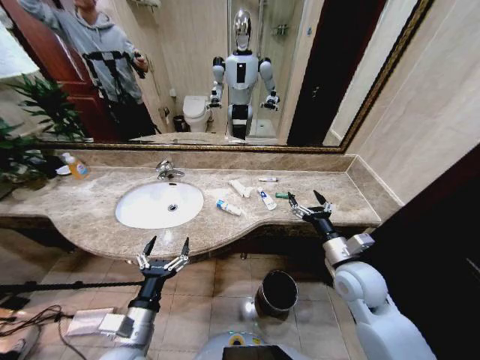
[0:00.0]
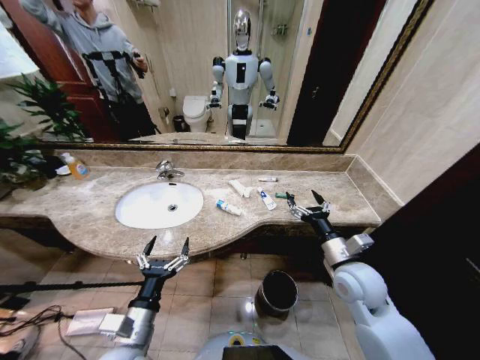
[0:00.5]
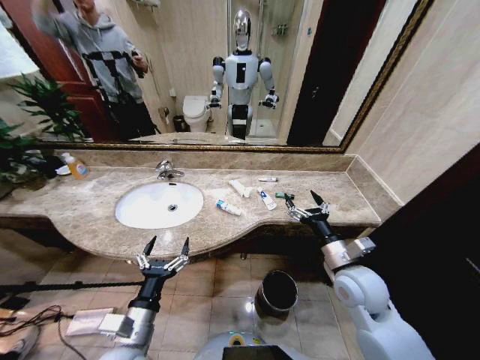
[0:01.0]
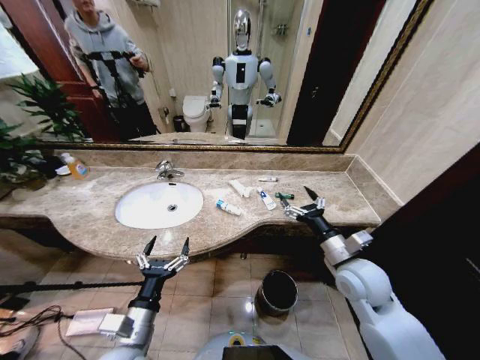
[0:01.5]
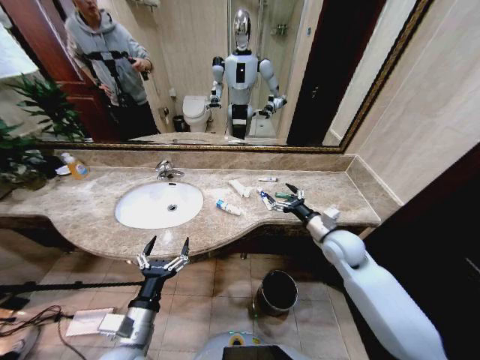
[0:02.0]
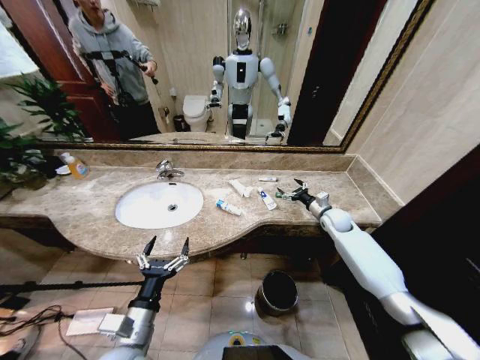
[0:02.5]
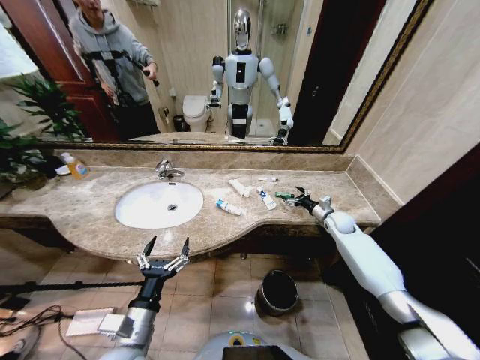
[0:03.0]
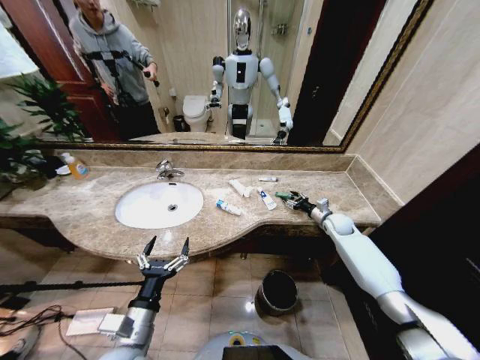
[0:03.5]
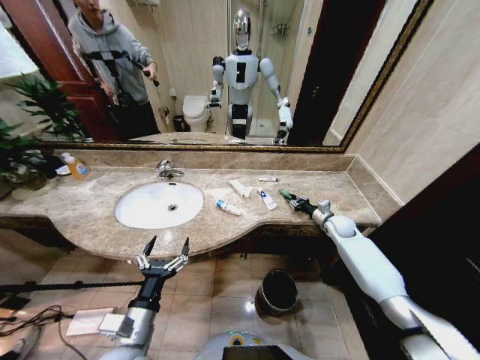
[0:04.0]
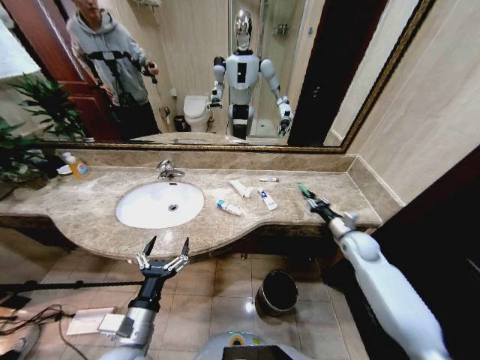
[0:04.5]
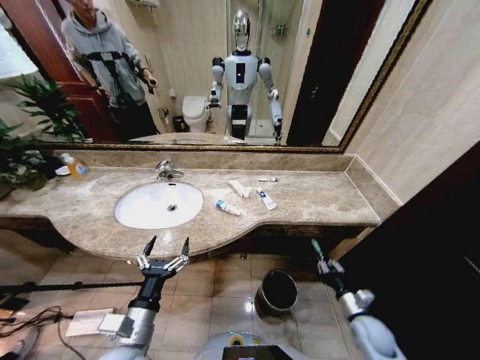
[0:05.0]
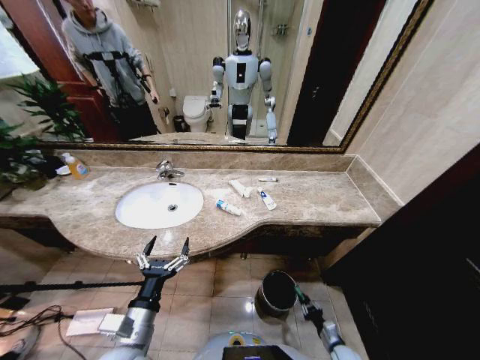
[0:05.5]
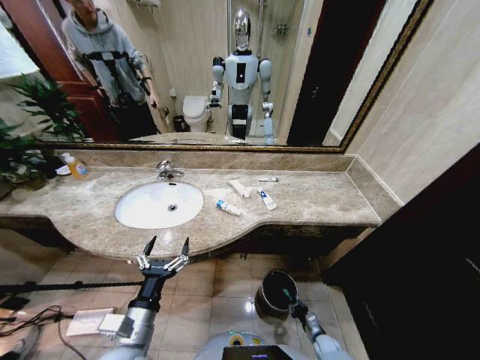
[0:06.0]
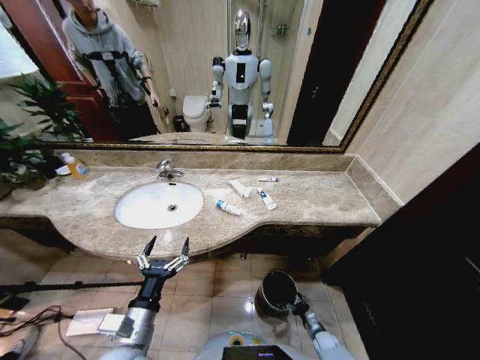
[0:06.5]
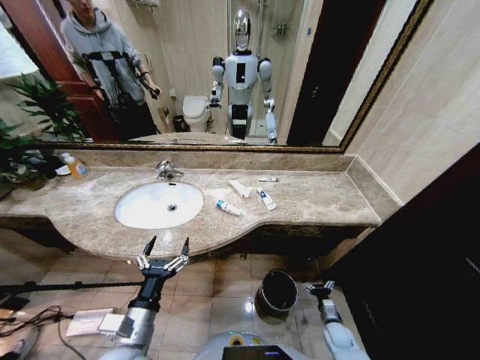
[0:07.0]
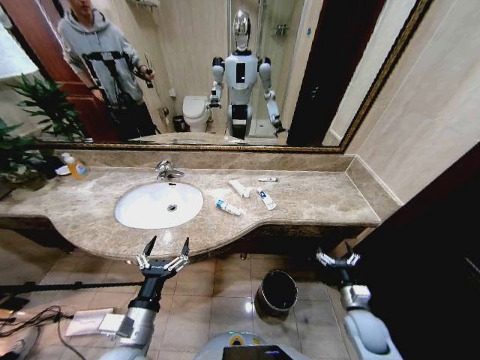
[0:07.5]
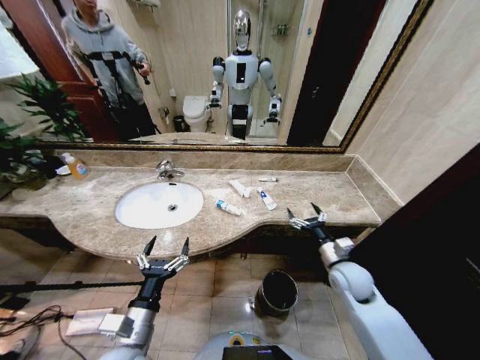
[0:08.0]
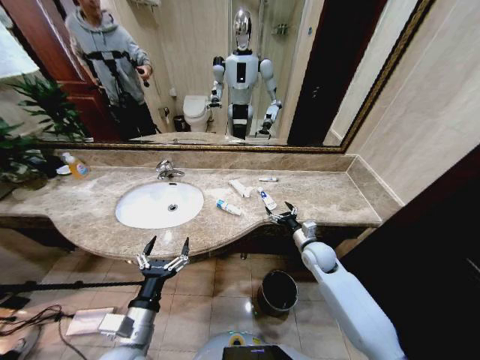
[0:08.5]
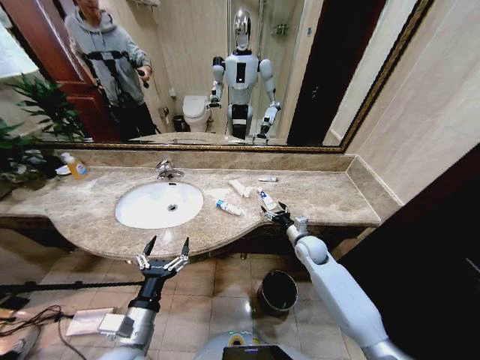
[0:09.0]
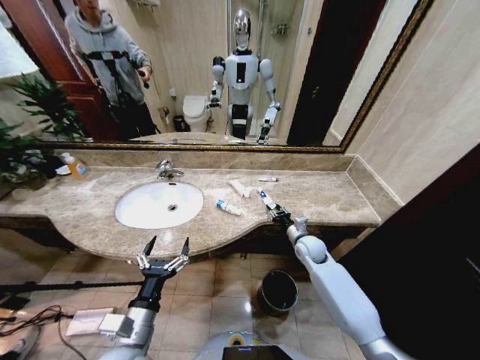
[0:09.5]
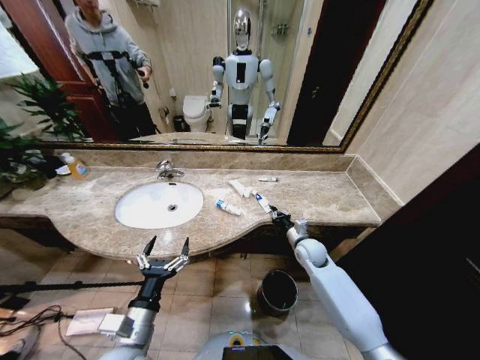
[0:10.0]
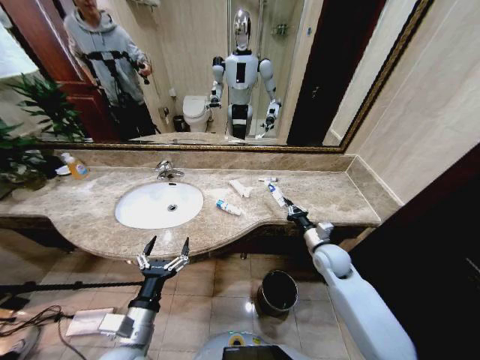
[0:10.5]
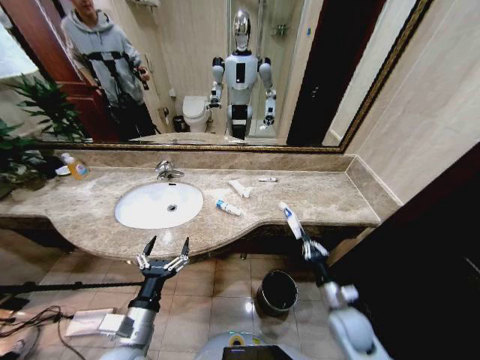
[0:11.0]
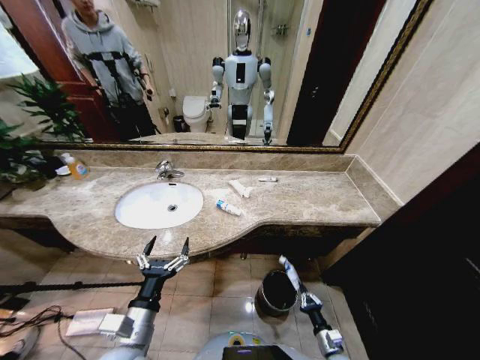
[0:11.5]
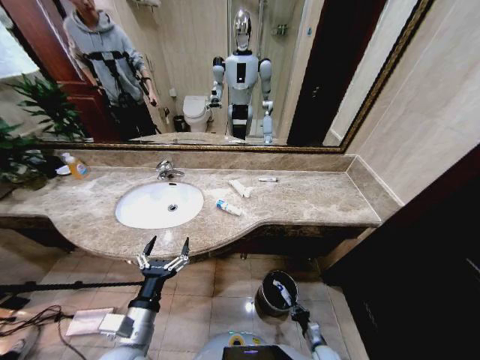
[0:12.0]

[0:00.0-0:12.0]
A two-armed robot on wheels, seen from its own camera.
Task of the whole recording: Pick up the trash from the sink and place it in the trash bin.
0:02.0 to 0:04.0: The right gripper travels forward, to the right and downward by roughly 20 cm, and closes.
0:04.0 to 0:06.0: The right gripper is displaced downward and backward by about 50 cm.
0:06.0 to 0:08.0: The right gripper is displaced upward by roughly 40 cm, and opens its fingers.
0:08.0 to 0:10.0: The right gripper heads forward and to the left, covering approximately 10 cm, and closes up.
0:10.0 to 0:12.0: The right gripper shifts some 40 cm downward and backward.

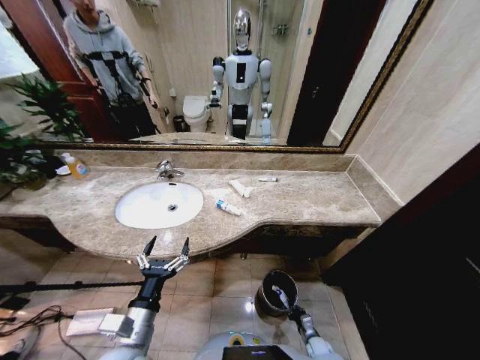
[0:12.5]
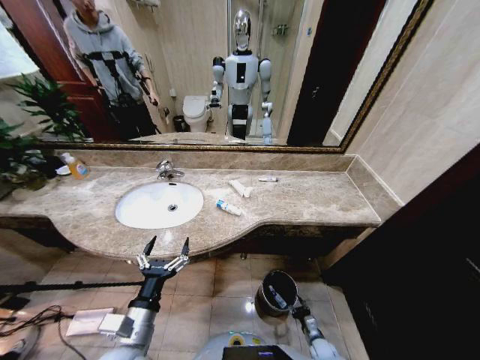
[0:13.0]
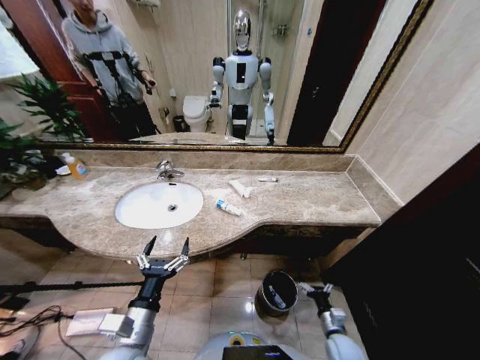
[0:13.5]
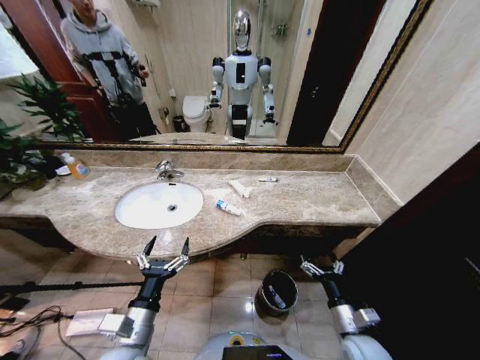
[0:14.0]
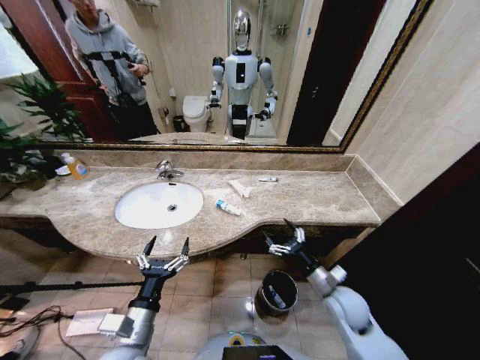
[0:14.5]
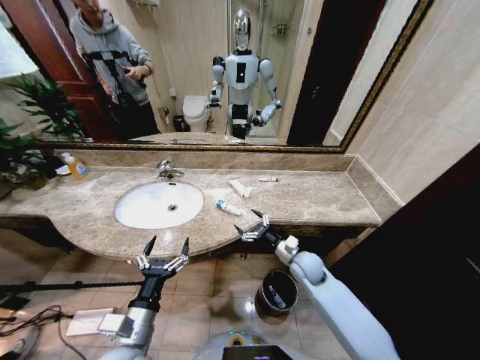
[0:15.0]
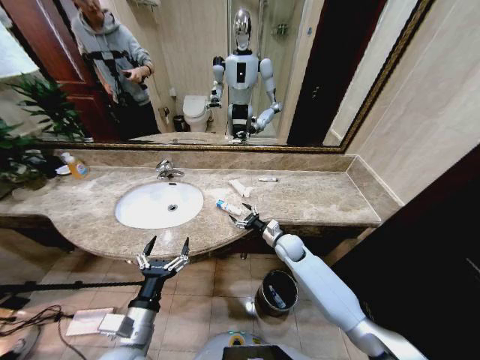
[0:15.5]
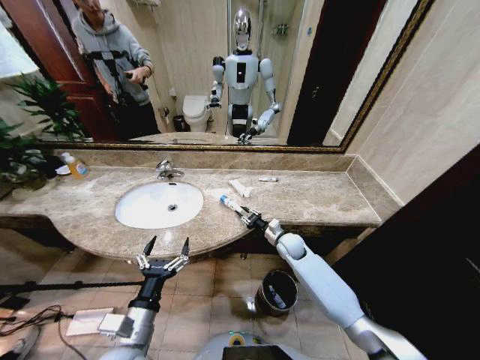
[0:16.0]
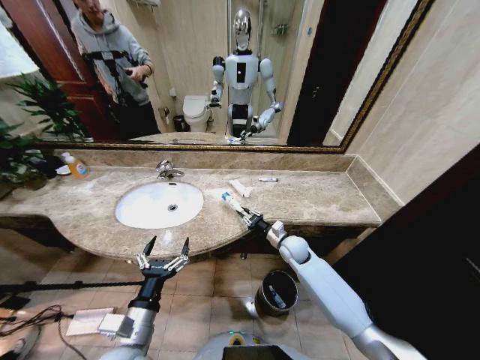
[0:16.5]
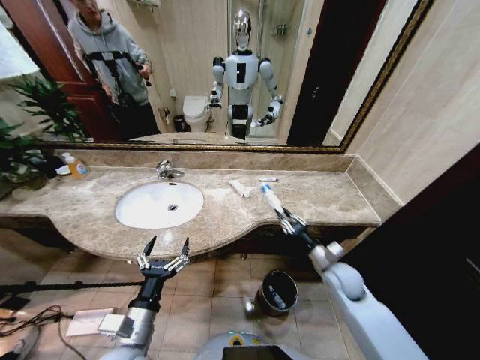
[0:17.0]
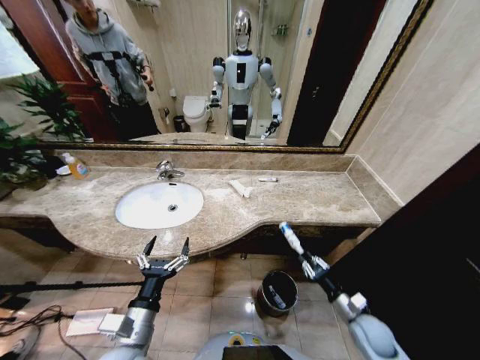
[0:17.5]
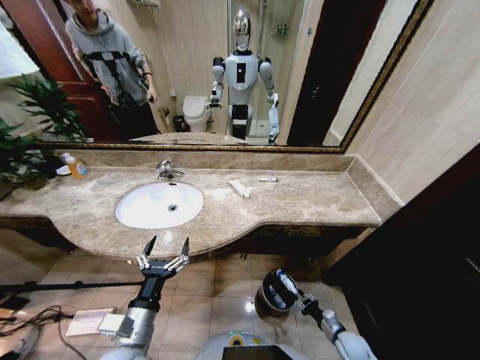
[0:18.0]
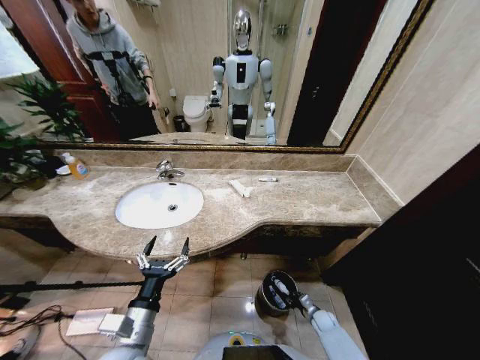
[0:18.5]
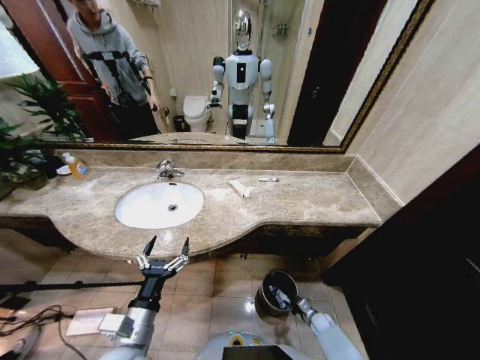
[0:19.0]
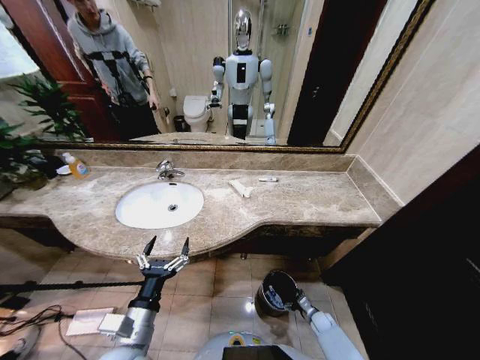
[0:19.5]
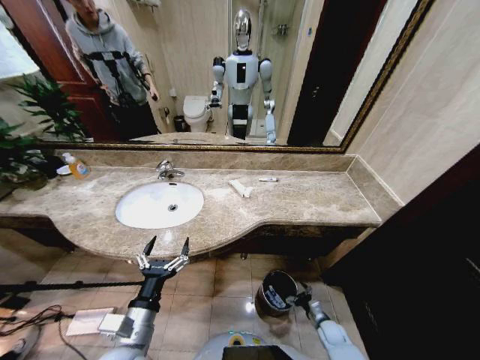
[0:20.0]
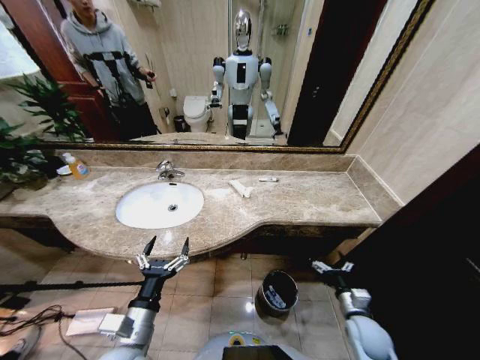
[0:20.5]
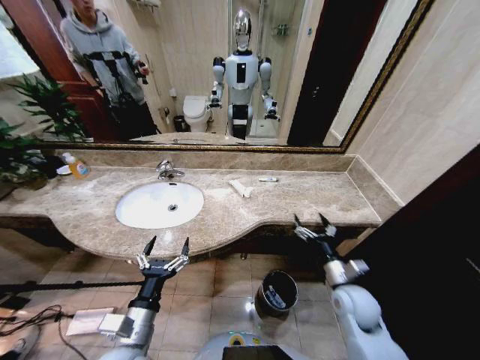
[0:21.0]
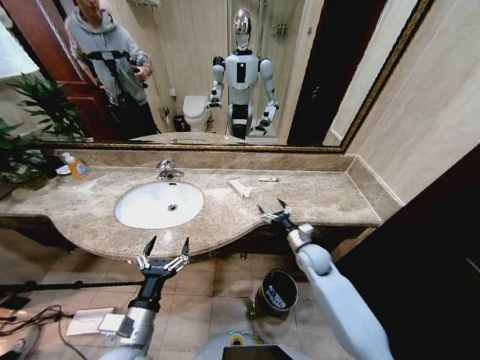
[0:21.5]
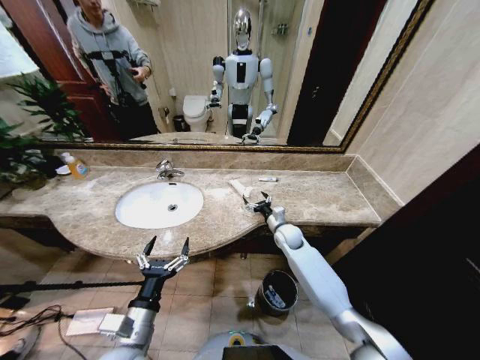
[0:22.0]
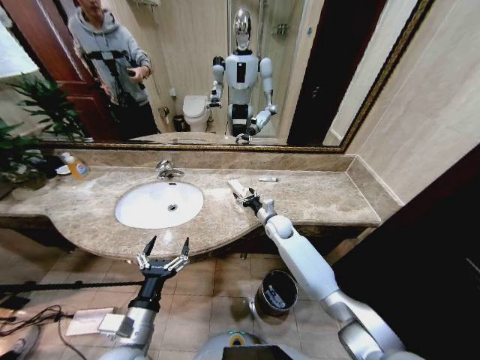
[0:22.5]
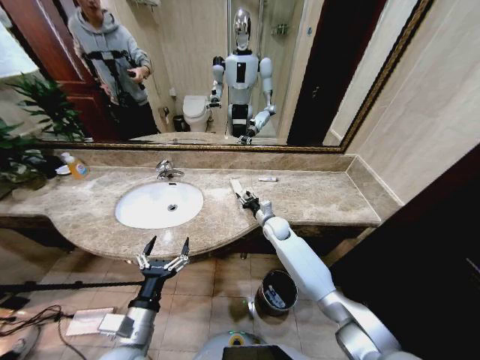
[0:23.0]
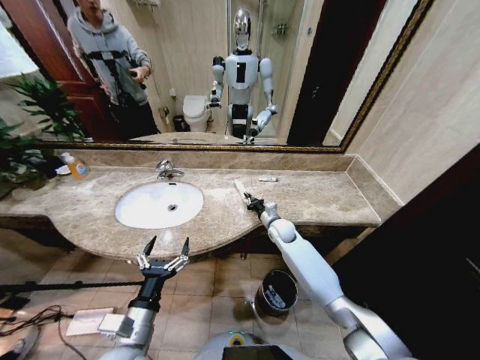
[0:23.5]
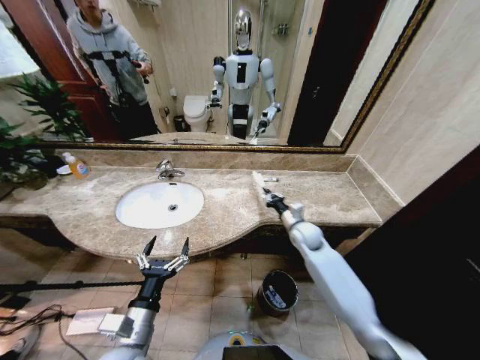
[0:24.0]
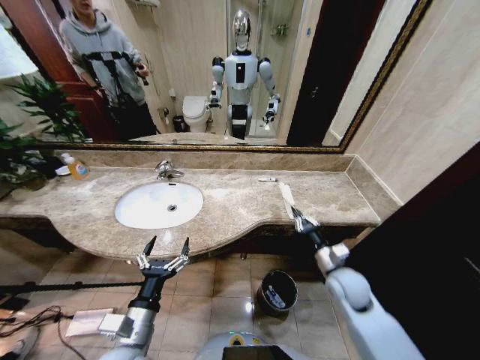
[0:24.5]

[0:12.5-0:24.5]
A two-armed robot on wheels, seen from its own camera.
Task of the whole recording: Pick up the trash from the sink and place it in the trash bin.
0:12.5 to 0:14.5: The right gripper is displaced upward by roughly 35 cm, and opens up.
0:14.5 to 0:16.5: The right gripper shifts about 20 cm forward, and closes.
0:16.5 to 0:18.5: The right gripper travels downward, backward and to the right by some 35 cm.
0:18.5 to 0:20.5: The right gripper heads upward, covering roughly 20 cm, and opens.
0:20.5 to 0:22.5: The right gripper shifts roughly 35 cm forward and to the left.
0:22.5 to 0:24.5: The right gripper moves backward and to the right, about 25 cm, and closes its fingers.

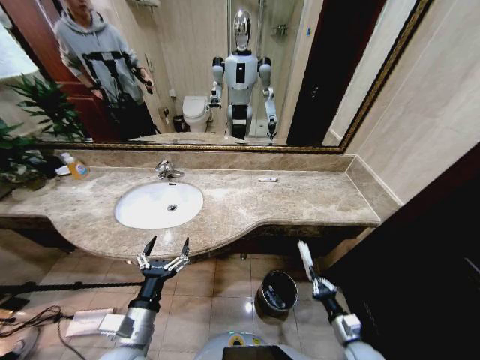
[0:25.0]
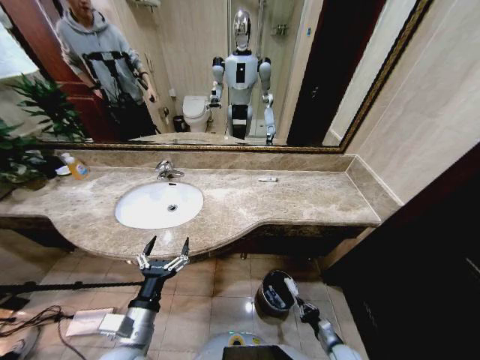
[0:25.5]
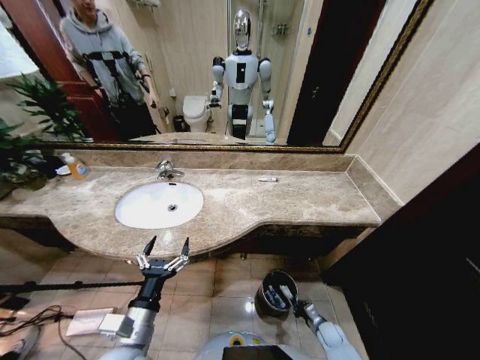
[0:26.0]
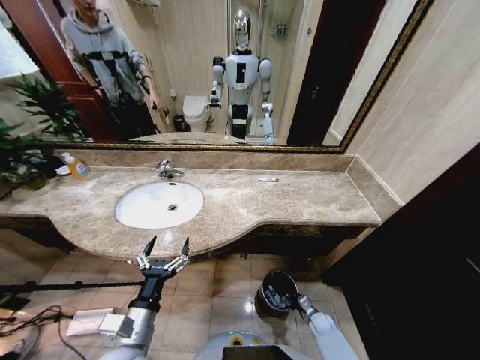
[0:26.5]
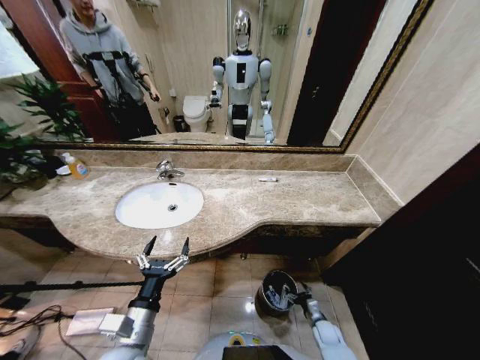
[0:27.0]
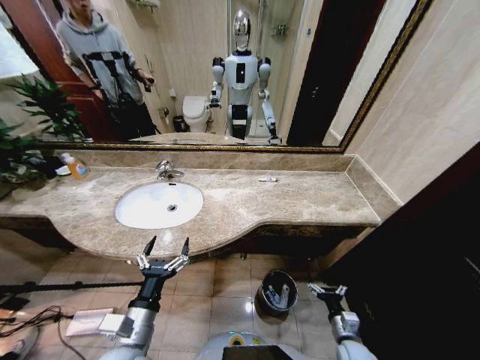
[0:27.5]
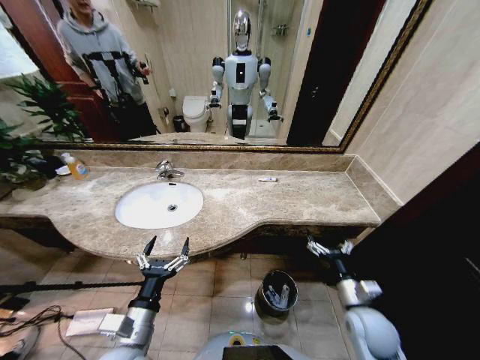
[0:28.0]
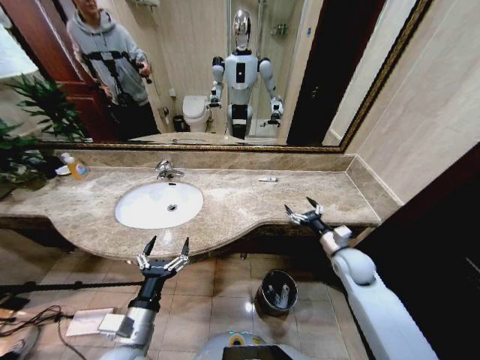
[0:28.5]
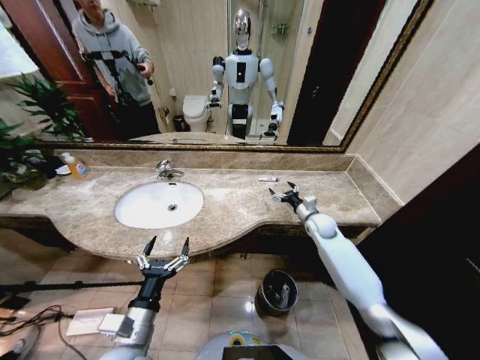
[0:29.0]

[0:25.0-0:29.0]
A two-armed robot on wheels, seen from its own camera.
Task of the whole recording: Pick up the trash from the sink and place it in the trash bin.
0:25.0 to 0:27.0: The right gripper is displaced downward and forward by approximately 15 cm, and opens.
0:27.0 to 0:29.0: The right gripper is displaced upward and forward by some 40 cm.
